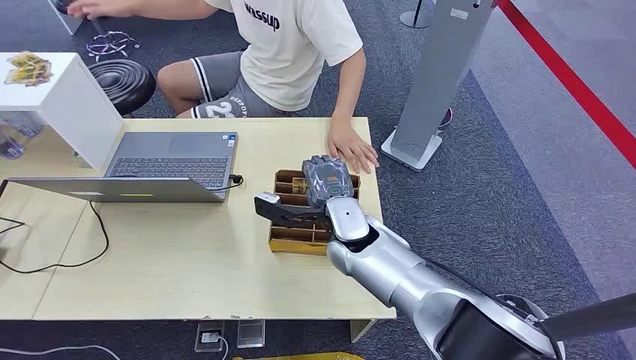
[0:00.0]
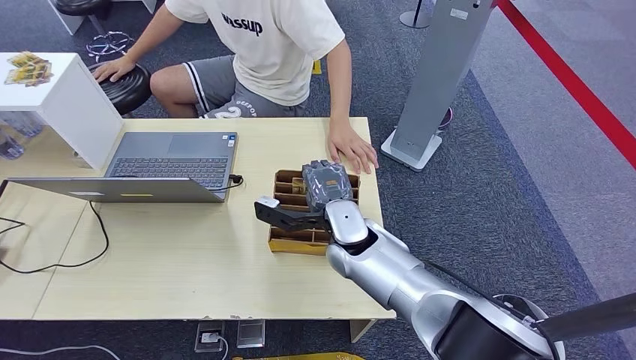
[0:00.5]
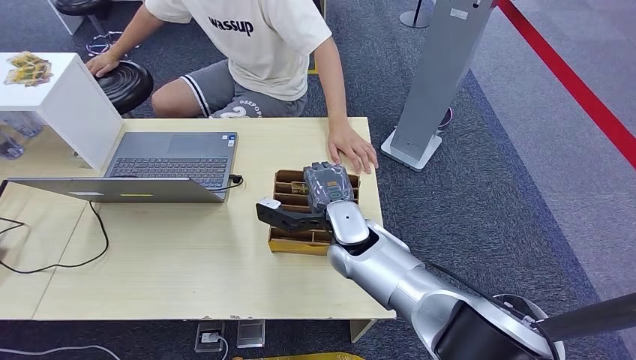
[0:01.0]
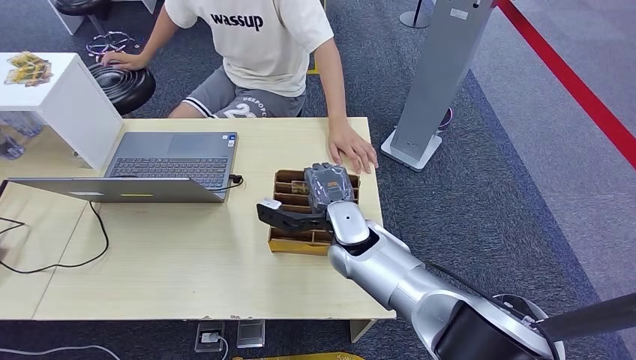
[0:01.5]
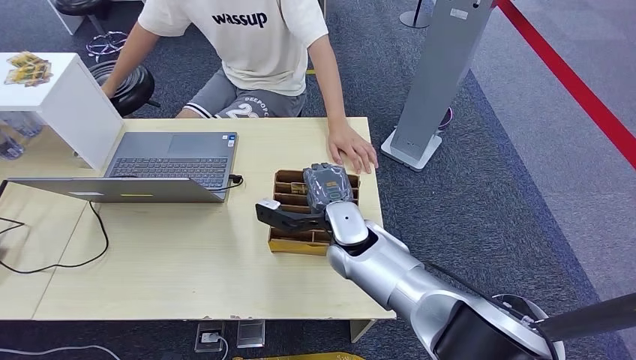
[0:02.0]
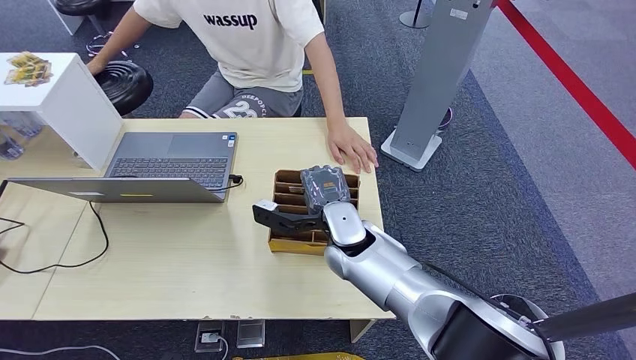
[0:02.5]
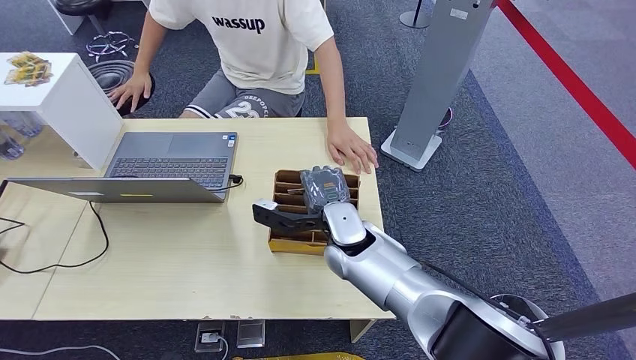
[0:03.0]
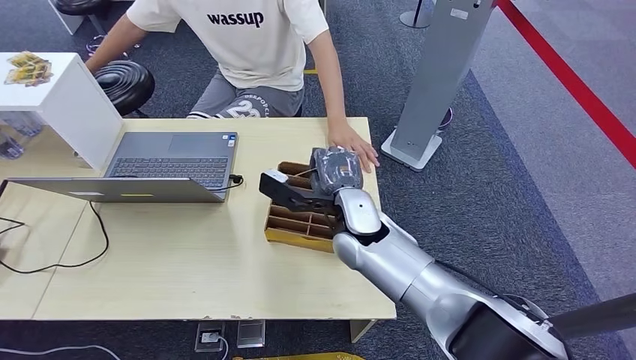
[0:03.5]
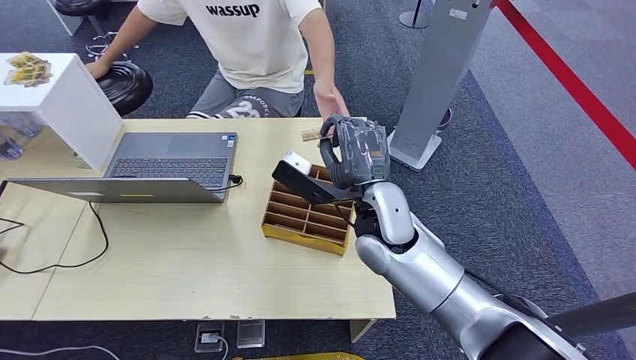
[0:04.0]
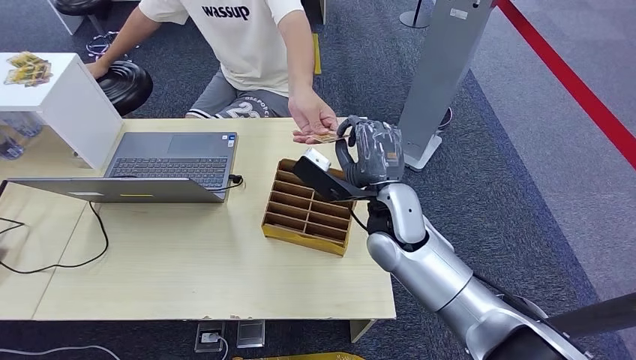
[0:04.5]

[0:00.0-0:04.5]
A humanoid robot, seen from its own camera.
Step, 0:00.0 to 0:03.0: Pick up the key card from the card box.
Step, 0:04.0 to 0:04.5: Hand the key card to the target.
0:02.0 to 0:04.5: The right hand moves to the right and upward, roughly 10 cm.
